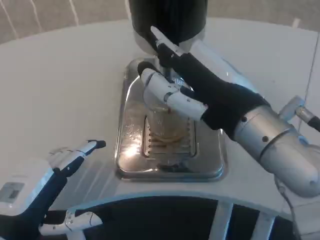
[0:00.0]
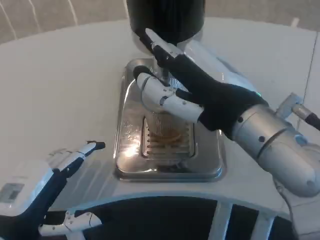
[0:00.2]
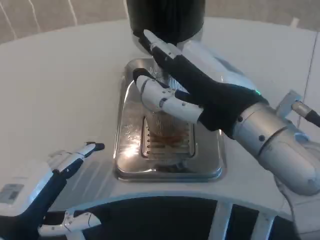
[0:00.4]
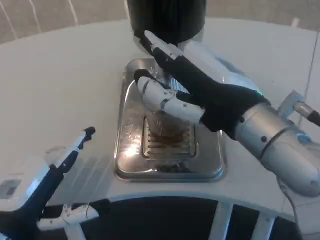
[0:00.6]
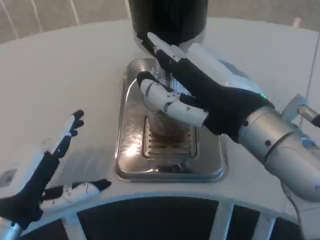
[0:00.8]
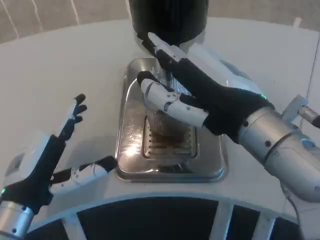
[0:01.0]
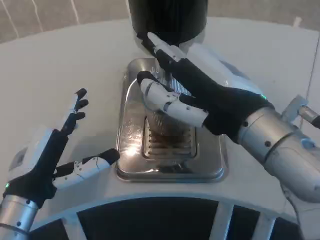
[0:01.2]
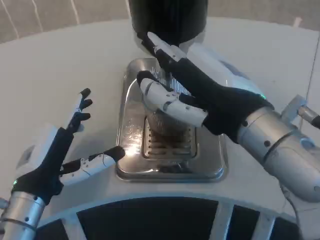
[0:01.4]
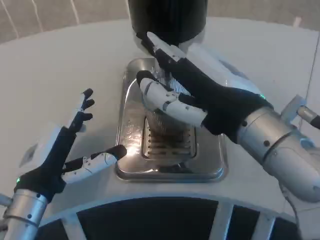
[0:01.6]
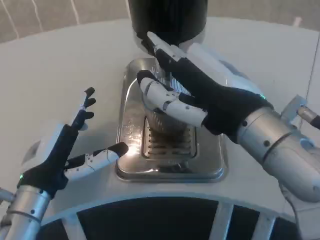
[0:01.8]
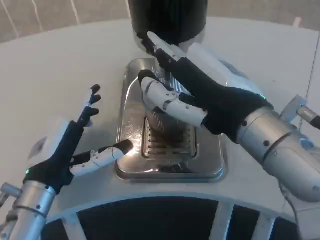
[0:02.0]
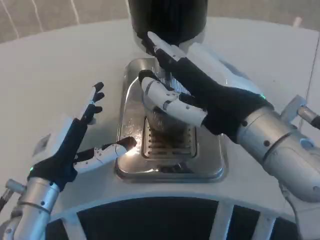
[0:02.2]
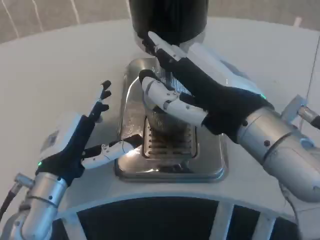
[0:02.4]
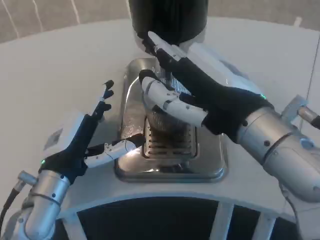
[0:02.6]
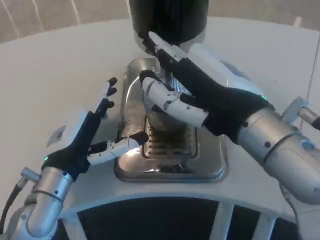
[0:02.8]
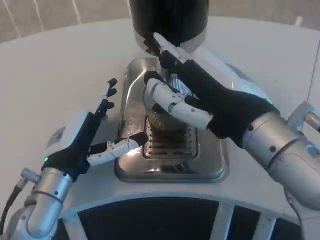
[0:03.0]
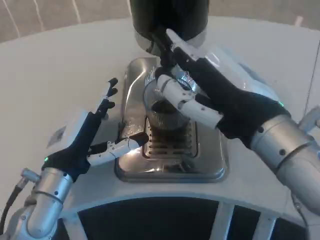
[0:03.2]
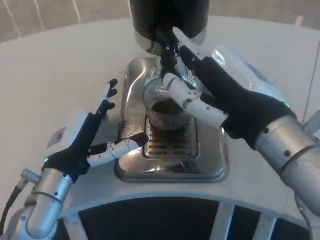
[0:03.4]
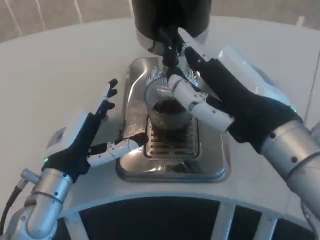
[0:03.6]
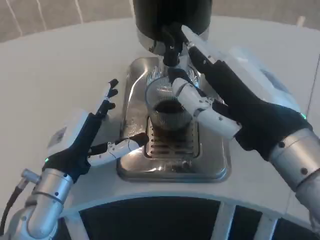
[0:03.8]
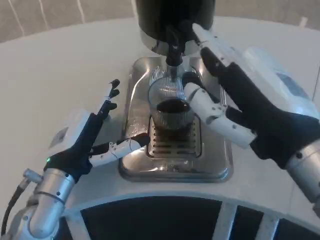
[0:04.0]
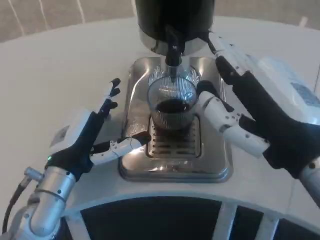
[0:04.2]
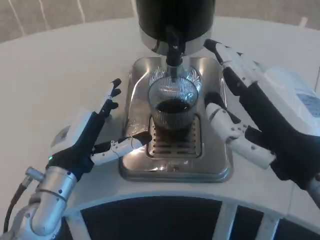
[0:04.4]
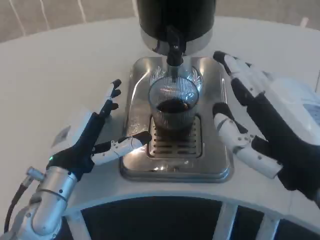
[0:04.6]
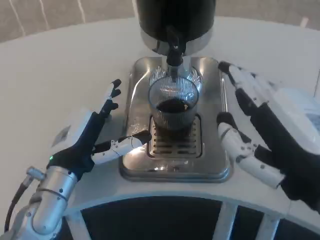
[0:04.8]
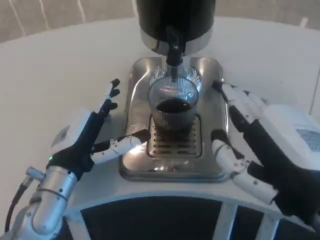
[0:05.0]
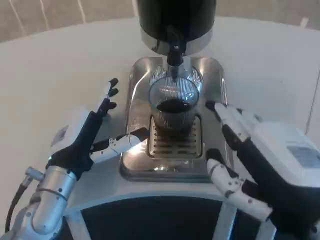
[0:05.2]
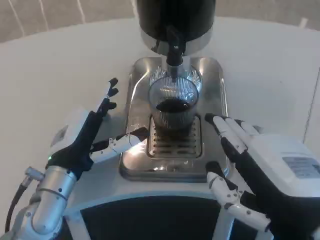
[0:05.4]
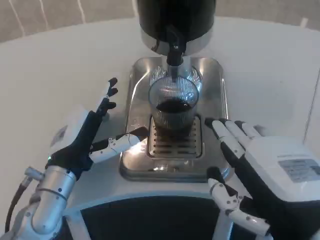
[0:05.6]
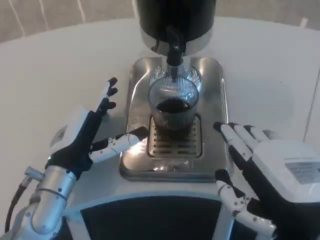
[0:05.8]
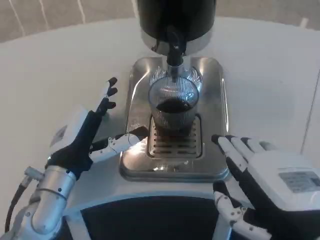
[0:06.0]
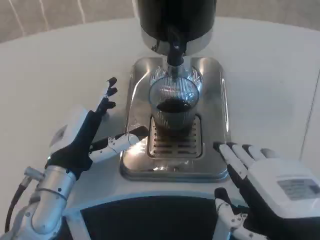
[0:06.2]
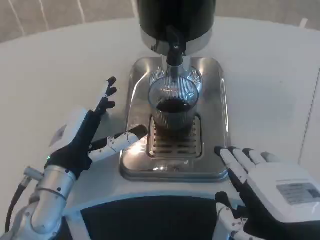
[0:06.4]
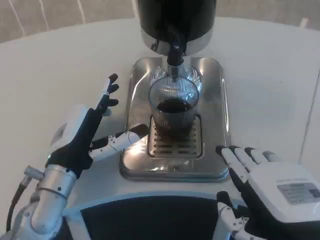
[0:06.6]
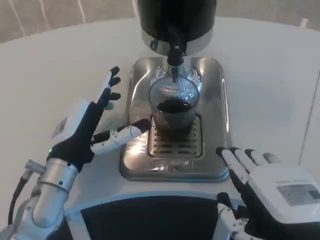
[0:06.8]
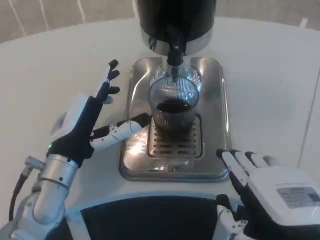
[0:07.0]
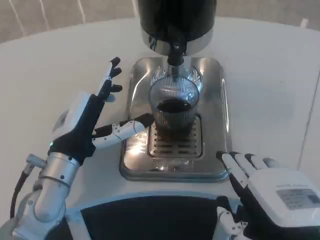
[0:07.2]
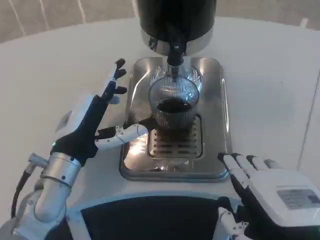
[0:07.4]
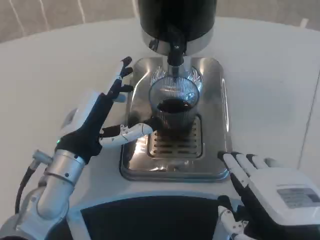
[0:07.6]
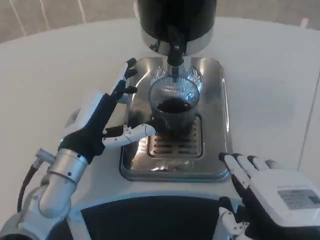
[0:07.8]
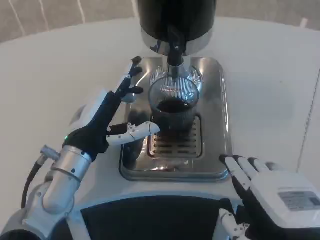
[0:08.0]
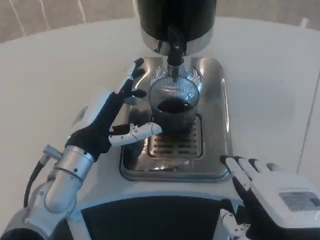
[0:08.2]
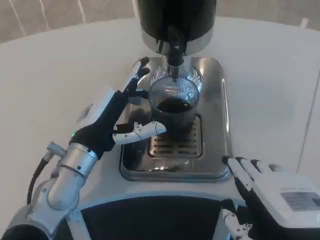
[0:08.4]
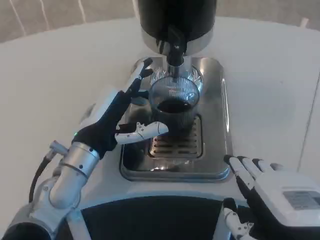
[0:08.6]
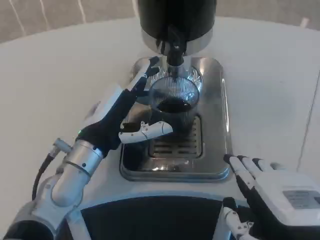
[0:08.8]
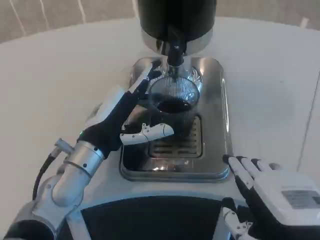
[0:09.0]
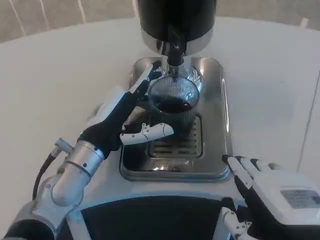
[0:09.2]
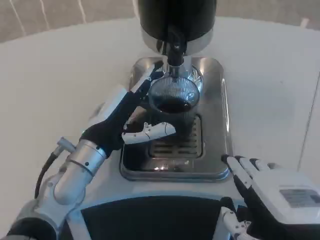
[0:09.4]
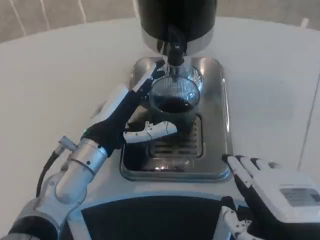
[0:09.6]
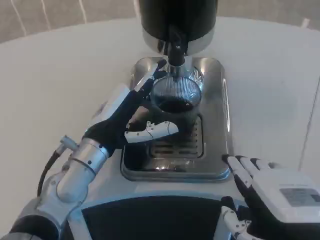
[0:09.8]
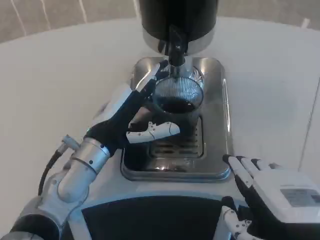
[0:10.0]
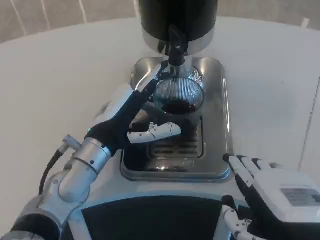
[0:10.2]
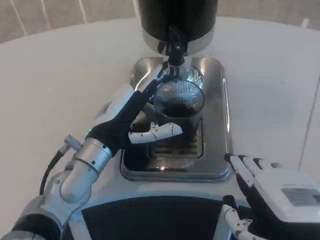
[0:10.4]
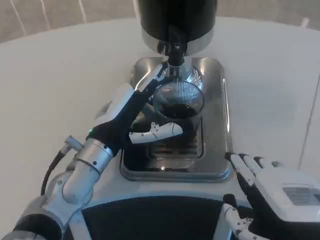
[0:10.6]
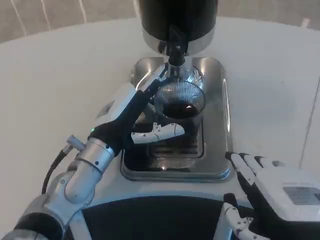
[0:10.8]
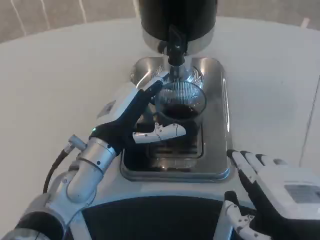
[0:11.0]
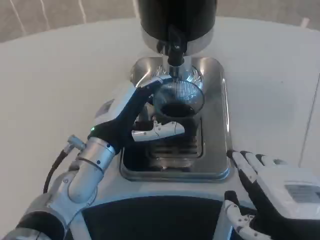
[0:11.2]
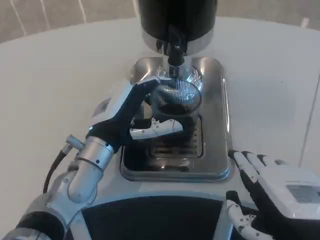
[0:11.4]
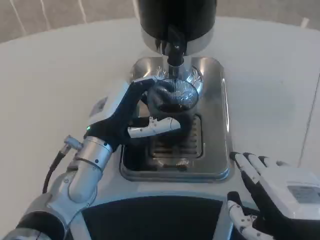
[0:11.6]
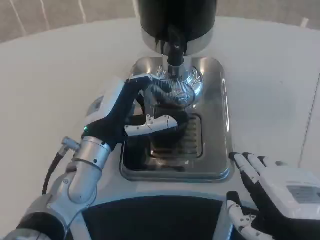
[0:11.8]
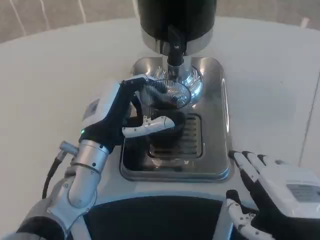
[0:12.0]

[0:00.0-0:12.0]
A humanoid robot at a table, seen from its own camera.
Task of the whole recording: Grasp the cup under the faucet to collect the drink, then remove the cup.
0:00.0 to 0:01.6: The left hand shifts about 5 cm forward.
0:01.6 to 0:03.0: The hands make only small movements.
0:03.0 to 0:04.4: The right hand shifts roughly 5 cm backward.
0:04.4 to 0:06.0: The right hand shifts by approximately 5 cm.
0:06.0 to 0:09.0: The hands make only small movements.
0:09.0 to 0:10.4: The two hands keep their place.
0:10.4 to 0:12.0: The hands stay close to where they were, moving slightly.

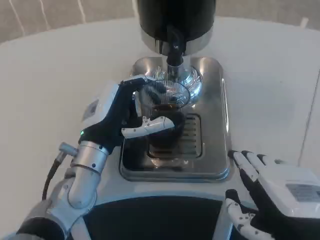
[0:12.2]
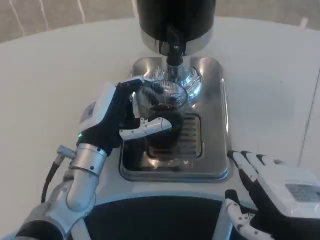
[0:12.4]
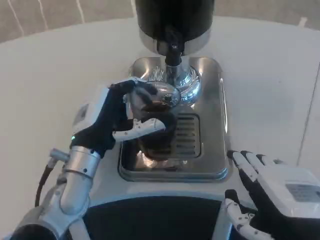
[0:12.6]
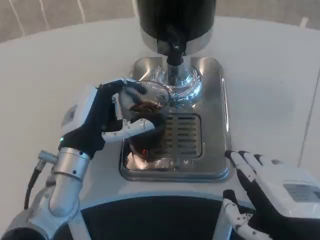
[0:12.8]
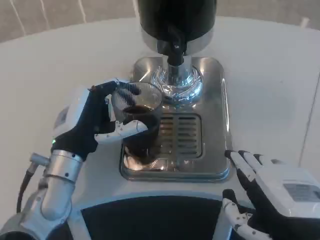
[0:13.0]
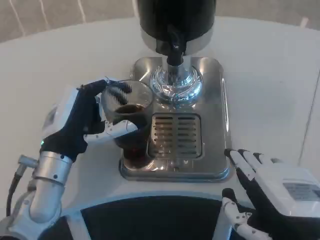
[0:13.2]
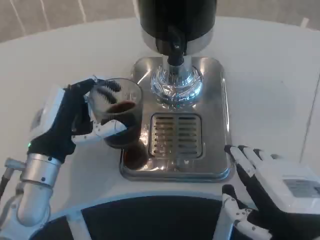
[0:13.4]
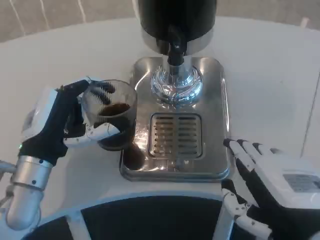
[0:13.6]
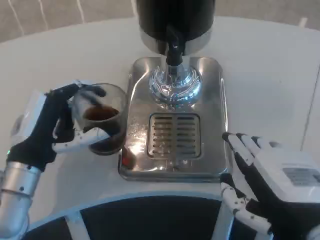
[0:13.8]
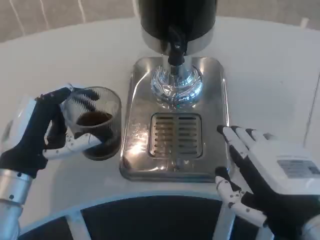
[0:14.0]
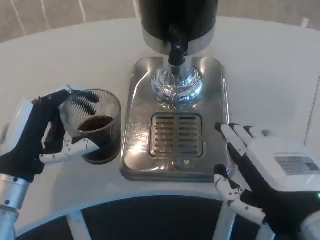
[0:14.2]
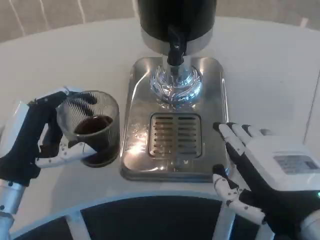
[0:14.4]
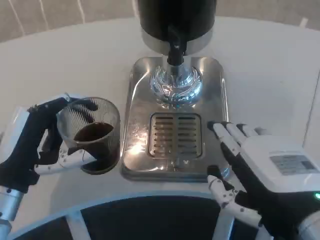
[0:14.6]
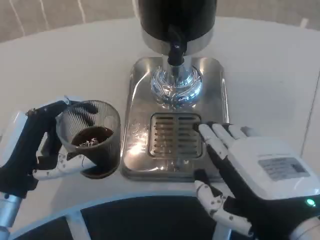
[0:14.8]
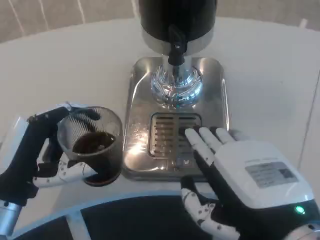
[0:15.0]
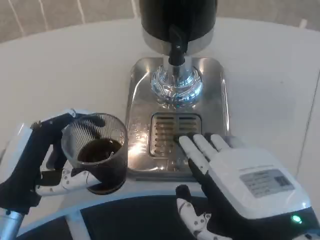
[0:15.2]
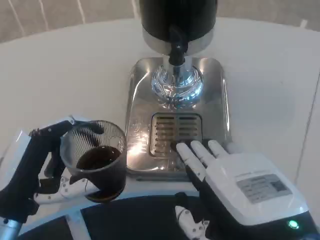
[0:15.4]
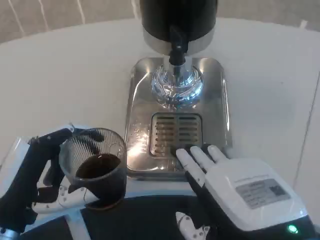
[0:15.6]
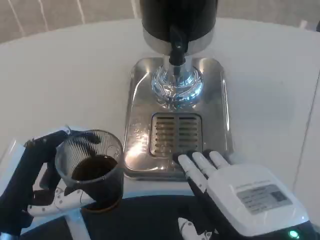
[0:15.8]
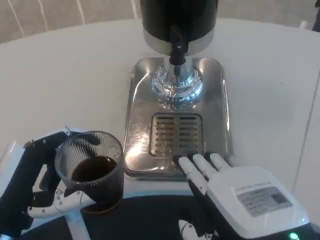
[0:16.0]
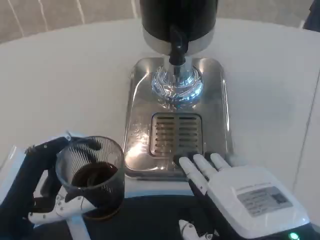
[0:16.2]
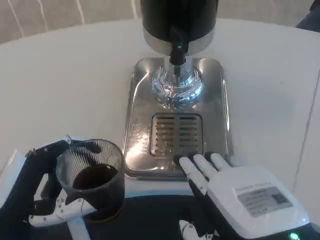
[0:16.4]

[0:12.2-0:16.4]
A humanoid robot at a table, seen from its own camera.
Task of the whole recording: Grasp the cup under the faucet to collect the drink, then remove the cup.
0:12.2 to 0:13.6: The left hand goes about 5 cm to the left.
0:13.6 to 0:15.0: The left hand shifts about 5 cm backward.
0:15.0 to 0:16.4: The left hand ends up about 5 cm from where it was.

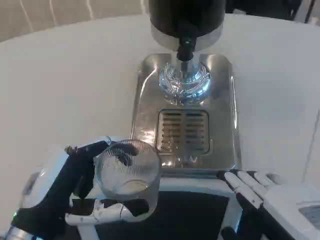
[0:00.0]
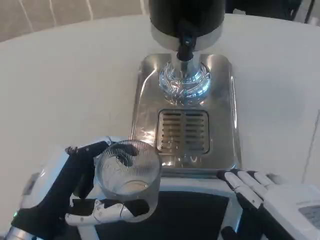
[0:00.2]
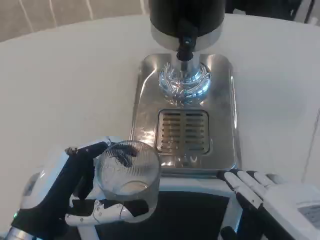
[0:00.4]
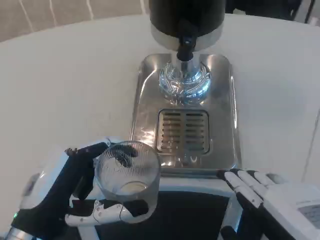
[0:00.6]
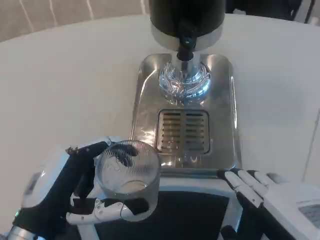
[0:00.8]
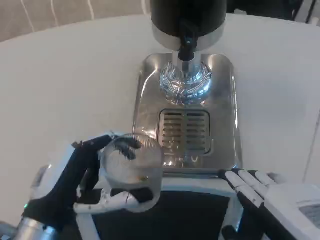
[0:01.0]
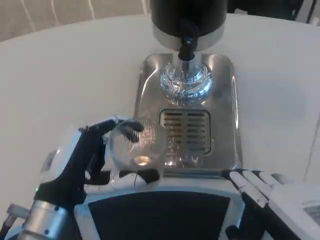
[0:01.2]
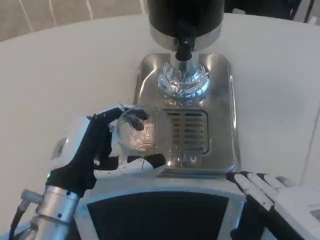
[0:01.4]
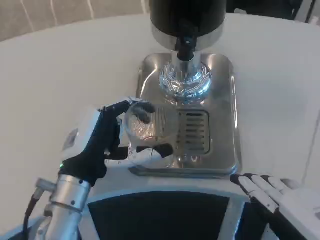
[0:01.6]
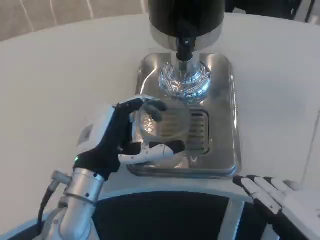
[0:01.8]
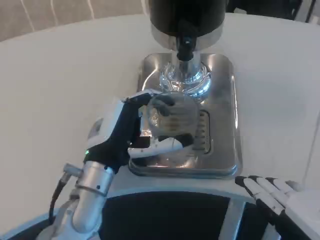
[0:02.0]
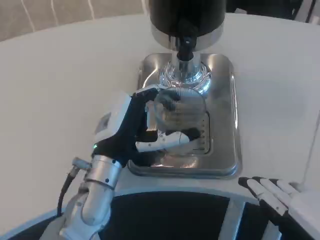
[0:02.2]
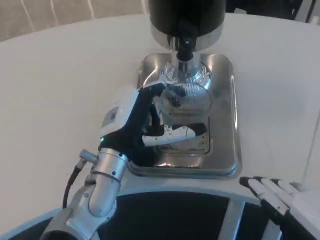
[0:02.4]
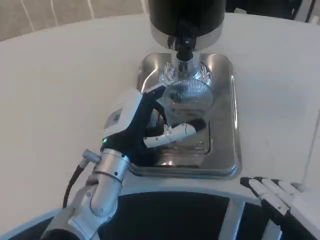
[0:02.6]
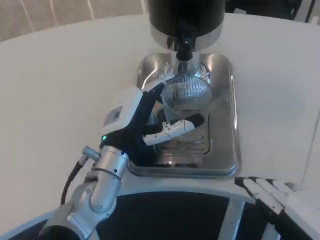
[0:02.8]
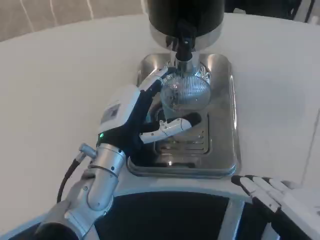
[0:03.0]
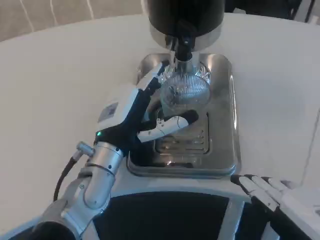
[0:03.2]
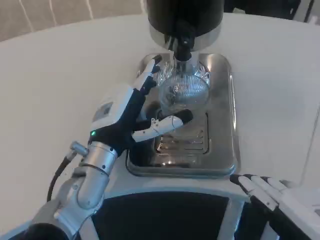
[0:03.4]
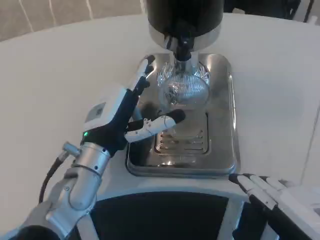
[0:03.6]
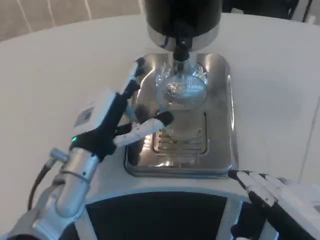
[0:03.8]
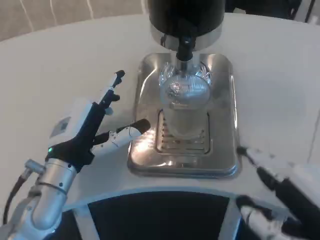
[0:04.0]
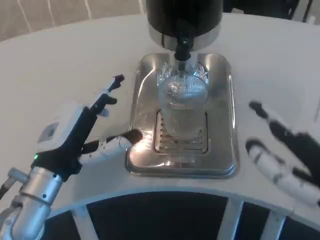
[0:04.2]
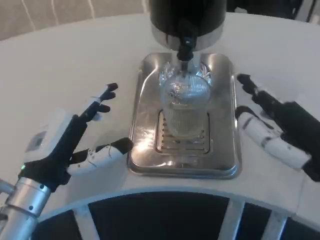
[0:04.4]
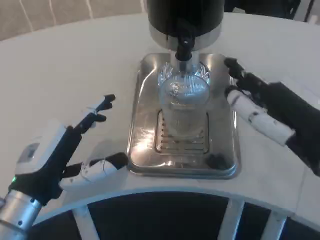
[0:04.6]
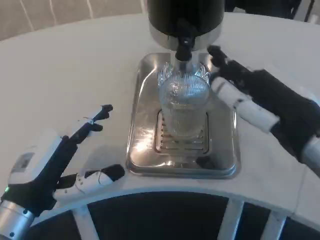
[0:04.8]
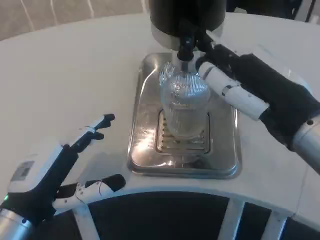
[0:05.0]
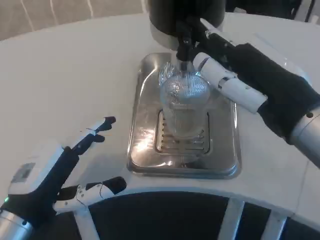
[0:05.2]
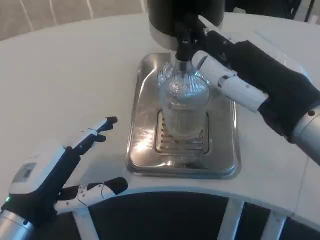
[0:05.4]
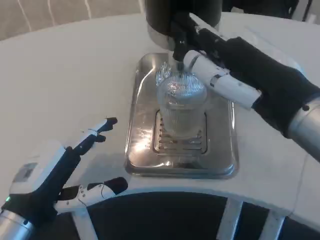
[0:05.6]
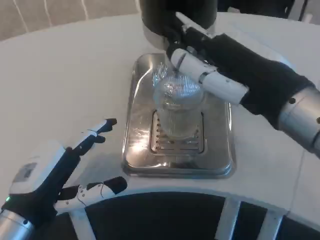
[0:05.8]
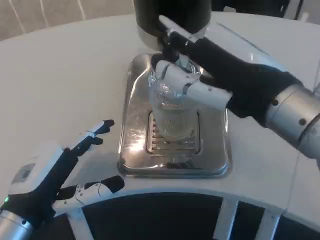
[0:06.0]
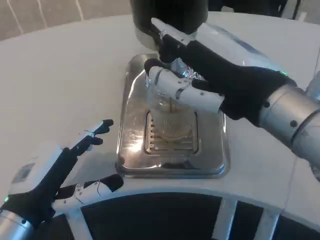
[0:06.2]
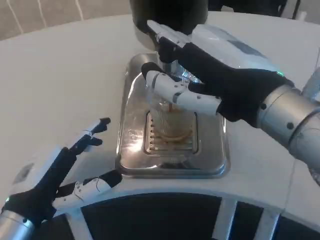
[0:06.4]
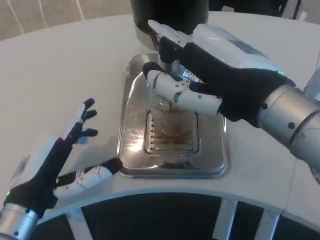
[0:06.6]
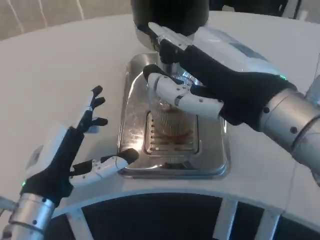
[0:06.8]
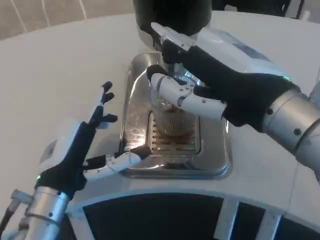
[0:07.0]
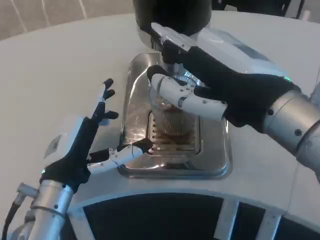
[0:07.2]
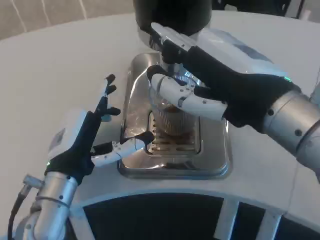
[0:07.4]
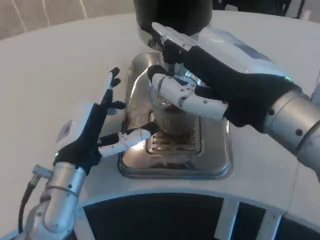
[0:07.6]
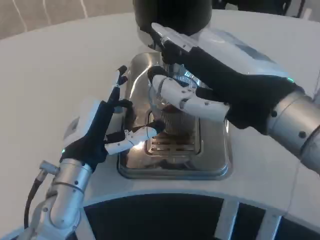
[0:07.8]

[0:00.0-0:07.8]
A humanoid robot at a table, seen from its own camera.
Task of the whole recording: Grasp the cup under the faucet to collect the drink, then remove the cup.
0:00.0 to 0:01.6: The left hand moves forward, approximately 10 cm.
0:01.6 to 0:03.2: The left hand changes place by some 5 cm.
0:03.2 to 0:04.6: The right hand moves forward and upward, about 10 cm. The left hand shifts about 15 cm to the left and backward.
0:04.6 to 0:06.2: The right hand heads to the left, covering some 5 cm.
0:06.2 to 0:07.8: The left hand moves forward and to the right, roughly 10 cm.
